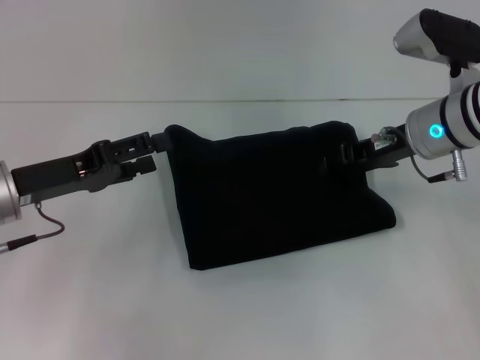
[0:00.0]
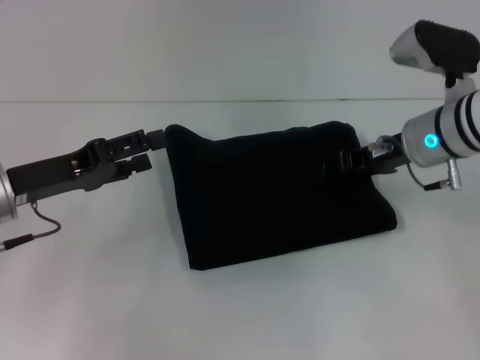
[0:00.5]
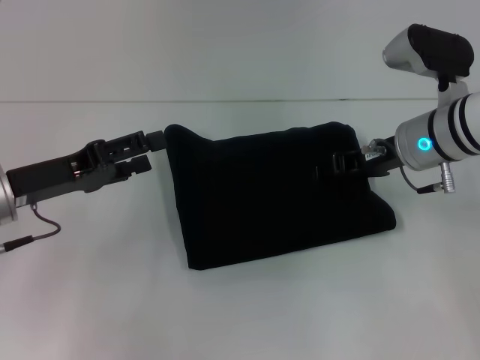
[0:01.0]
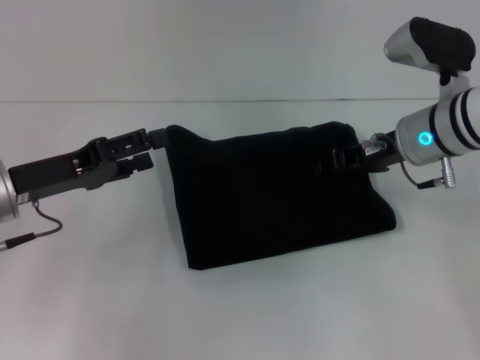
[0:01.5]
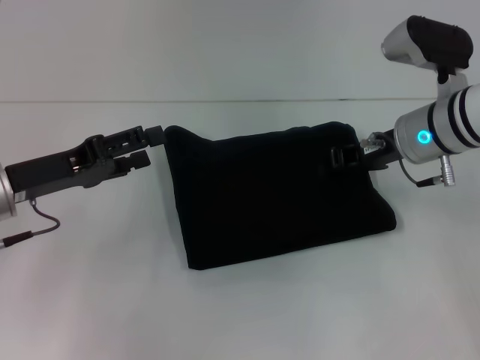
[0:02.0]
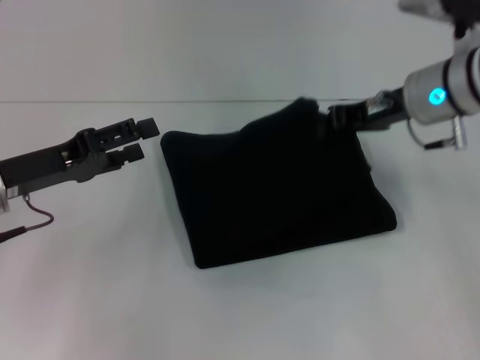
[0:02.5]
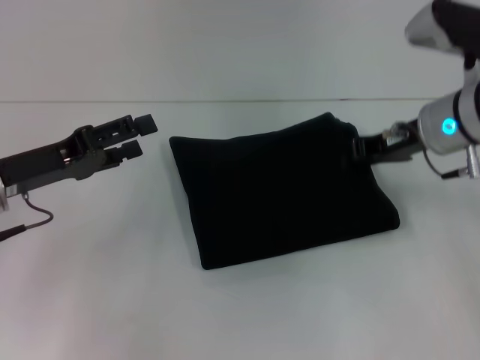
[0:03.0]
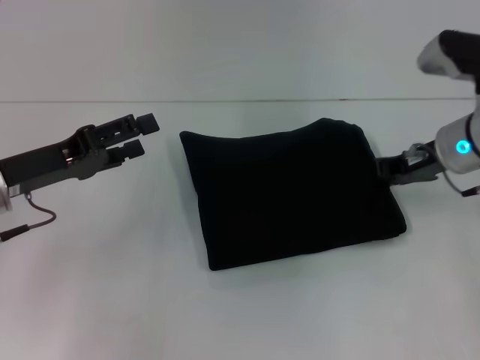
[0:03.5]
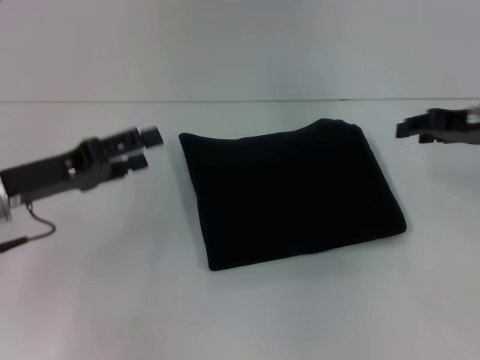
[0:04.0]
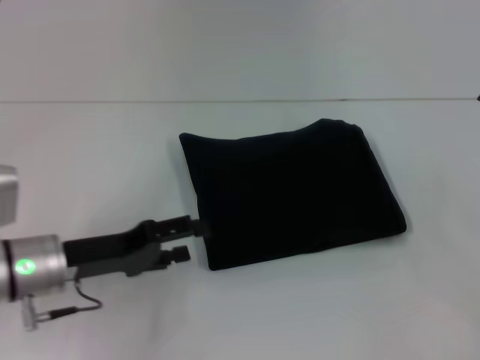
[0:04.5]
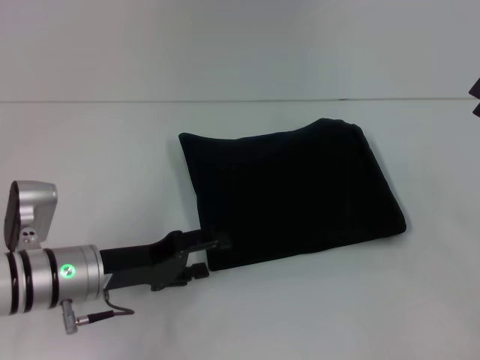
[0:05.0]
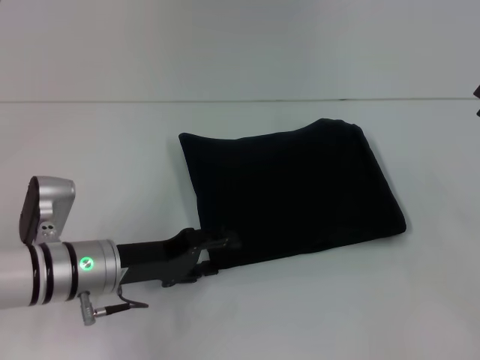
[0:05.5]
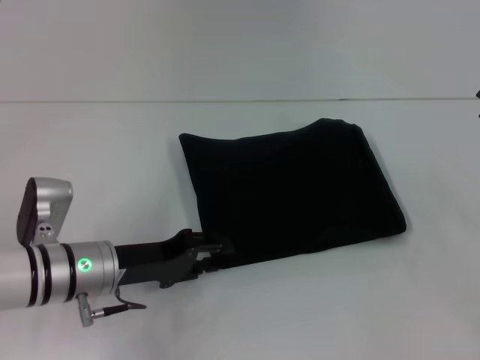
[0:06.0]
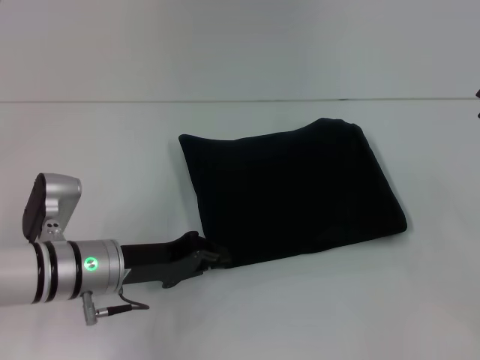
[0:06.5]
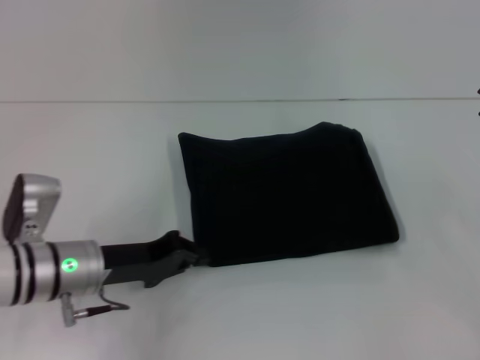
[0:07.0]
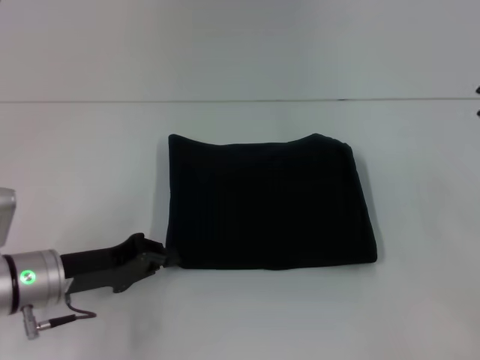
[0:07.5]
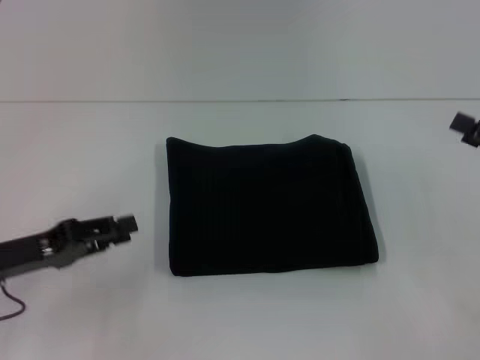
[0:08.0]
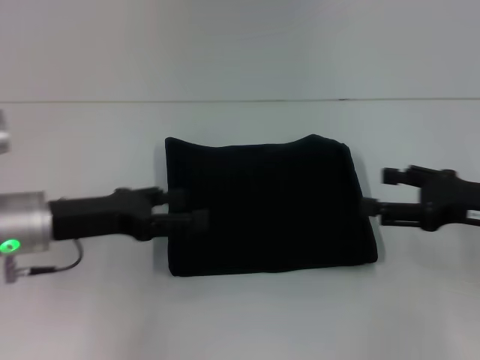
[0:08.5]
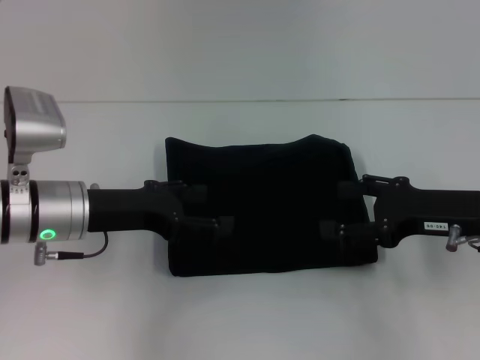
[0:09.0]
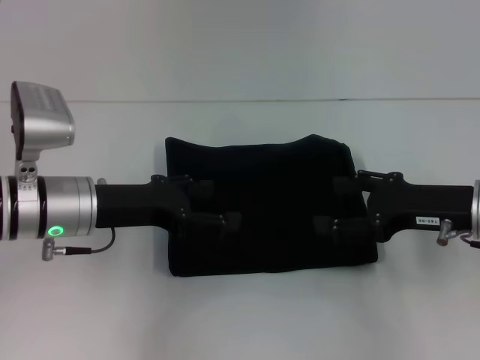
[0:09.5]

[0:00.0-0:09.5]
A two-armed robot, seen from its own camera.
0:00.0 to 0:02.0: The grippers make only small movements.
0:02.0 to 0:04.0: The right gripper goes roughly 10 cm to the right.
0:04.0 to 0:05.5: The right gripper is displaced backward and to the right by approximately 10 cm, and opens up; the left gripper travels to the right and downward by about 10 cm.
0:05.5 to 0:07.5: The left gripper travels to the left by roughly 5 cm, and closes.
0:07.5 to 0:09.5: The left gripper shifts approximately 5 cm upward, and opens up, while the right gripper goes roughly 10 cm to the left.

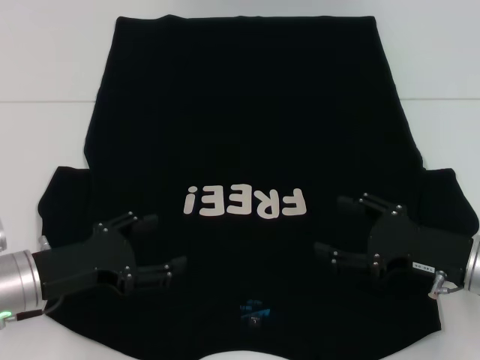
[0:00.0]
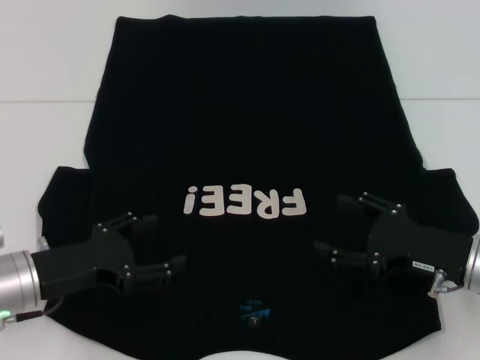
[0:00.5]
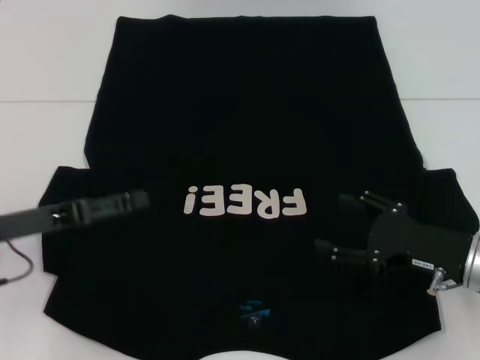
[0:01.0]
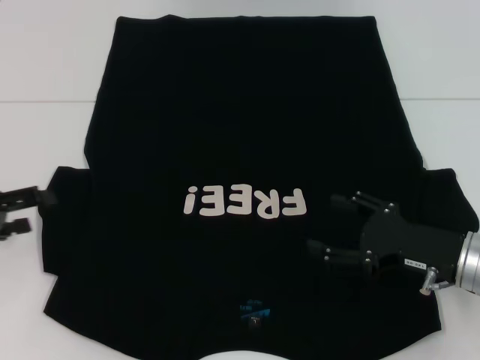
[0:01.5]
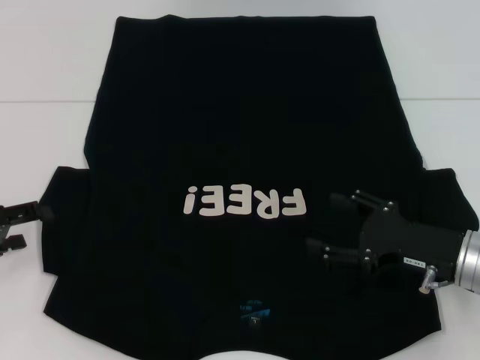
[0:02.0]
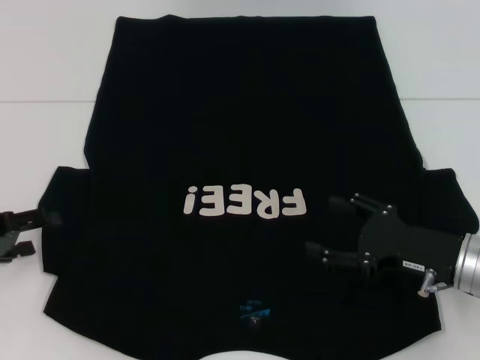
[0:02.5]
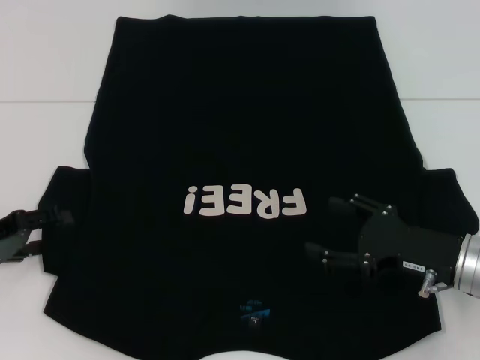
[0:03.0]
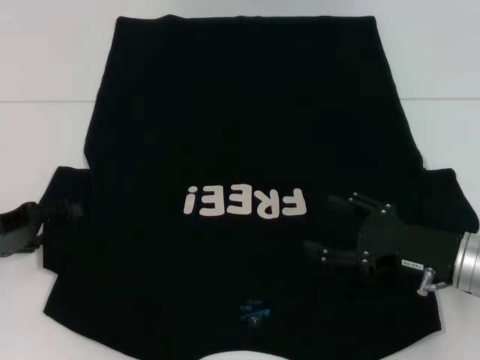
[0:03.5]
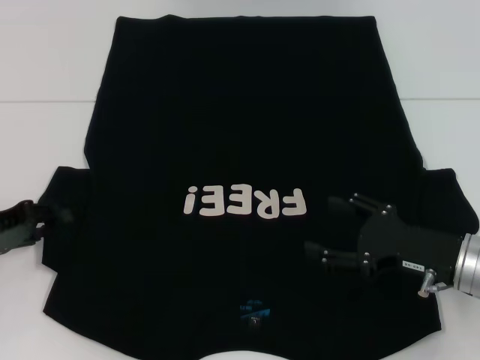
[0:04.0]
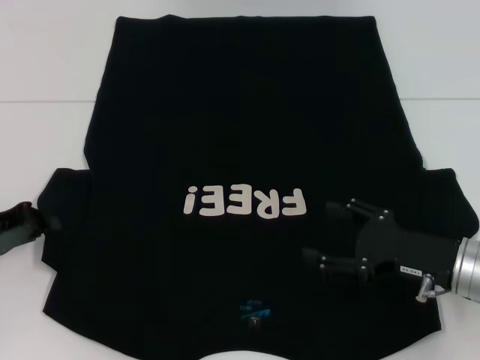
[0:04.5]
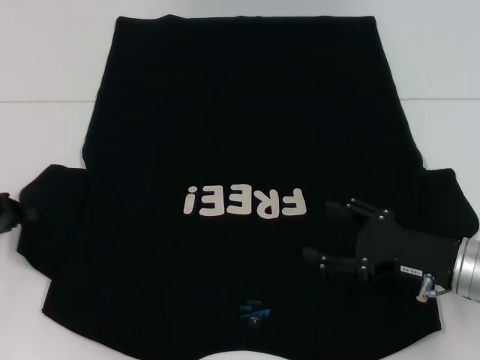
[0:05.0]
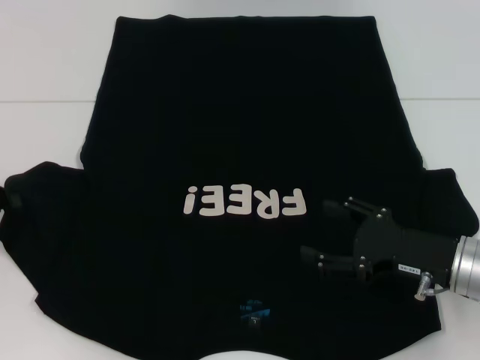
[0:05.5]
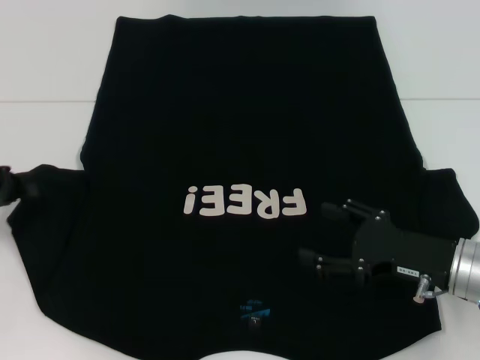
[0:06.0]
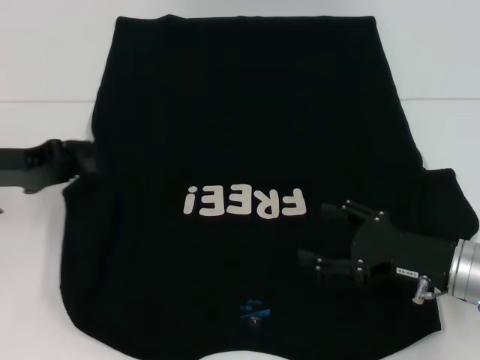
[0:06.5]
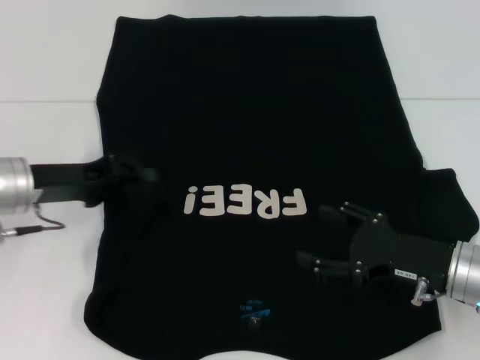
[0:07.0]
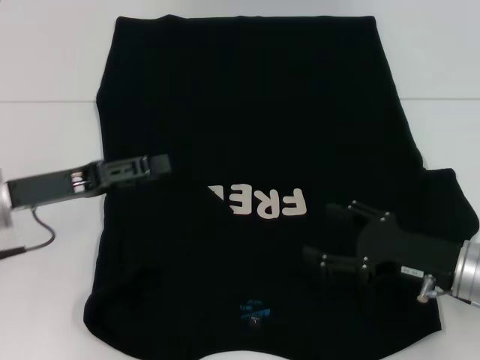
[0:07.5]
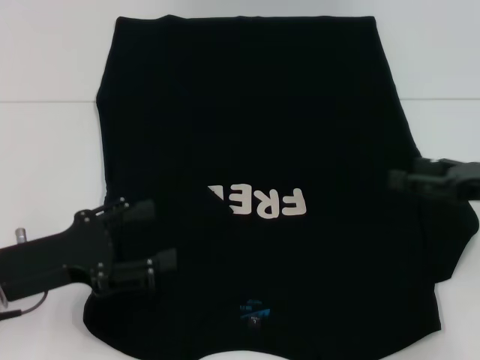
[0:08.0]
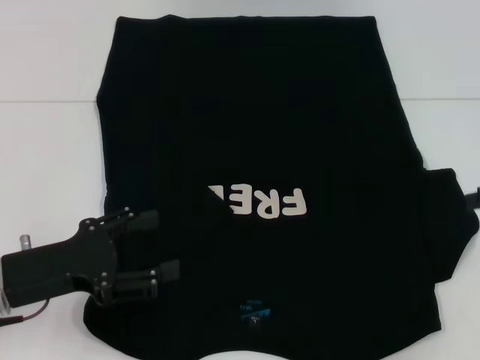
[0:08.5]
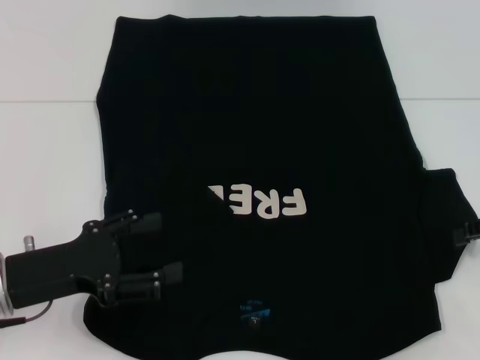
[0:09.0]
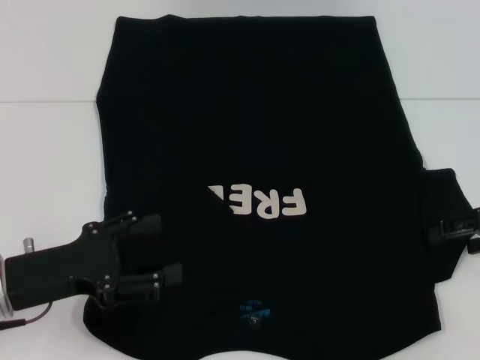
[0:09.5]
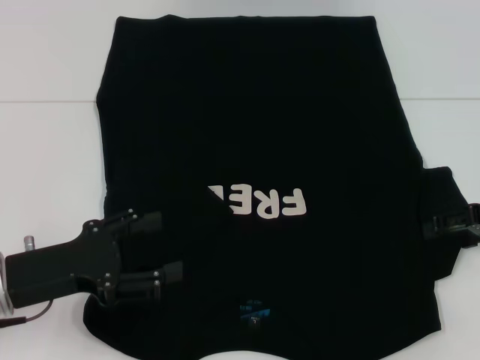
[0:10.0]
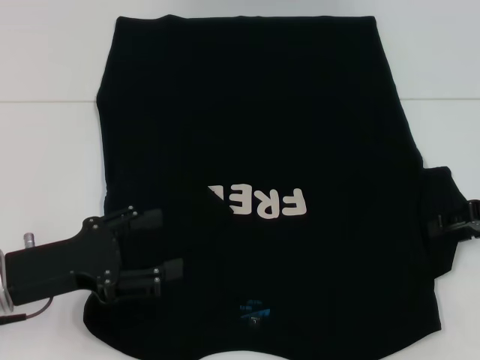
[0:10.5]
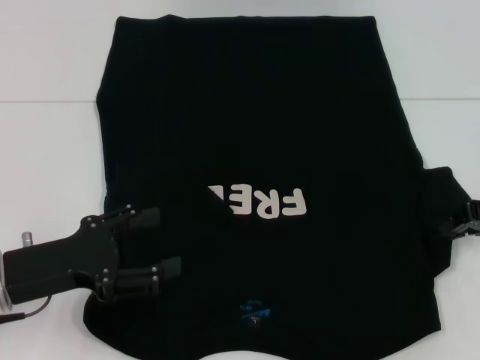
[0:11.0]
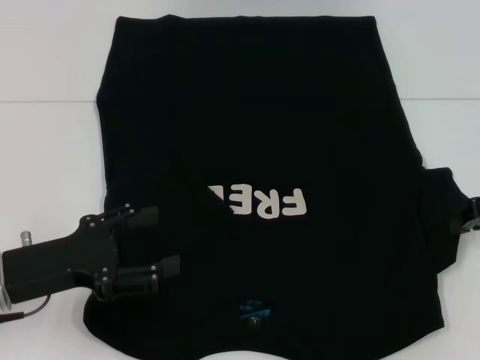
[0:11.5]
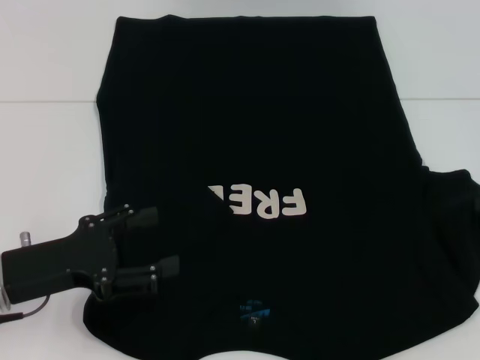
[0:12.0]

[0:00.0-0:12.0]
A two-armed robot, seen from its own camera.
Step, 0:00.0 to 0:08.0: Fold the bottom left sleeve with your left hand.
0:00.0 to 0:02.0: The left gripper heads to the left, covering approximately 10 cm.
0:02.0 to 0:04.0: The grippers make only small movements.
0:04.0 to 0:06.0: The left gripper shifts by roughly 5 cm, and closes its fingers.
0:06.0 to 0:08.0: The right gripper moves to the right and upward, some 10 cm. Meanwhile the left gripper heads to the right and backward, covering approximately 15 cm, and opens its fingers.
0:10.0 to 0:12.0: The right gripper closes.

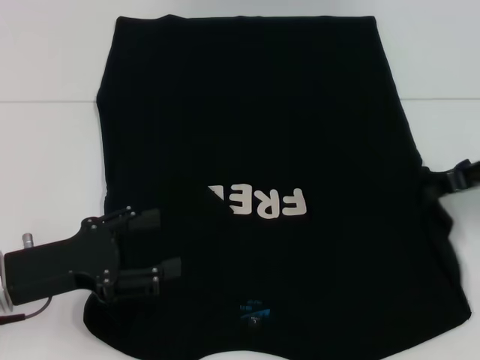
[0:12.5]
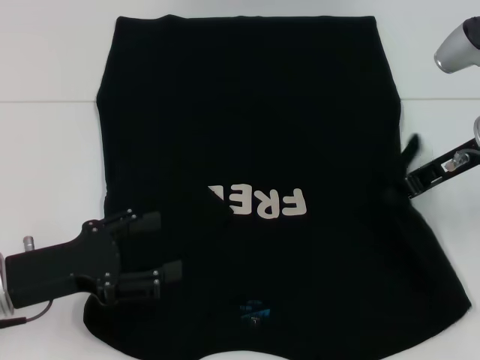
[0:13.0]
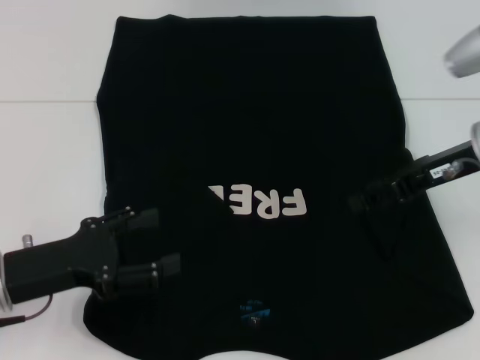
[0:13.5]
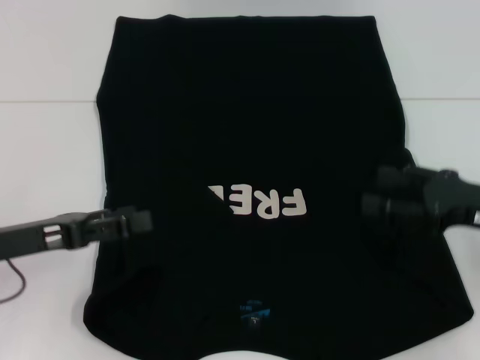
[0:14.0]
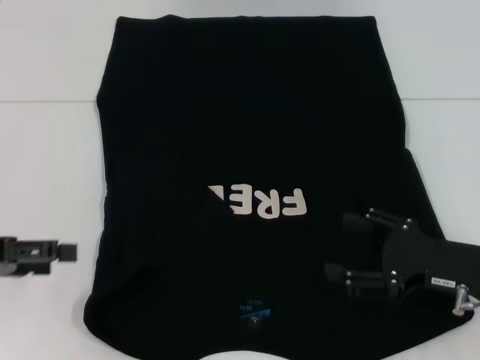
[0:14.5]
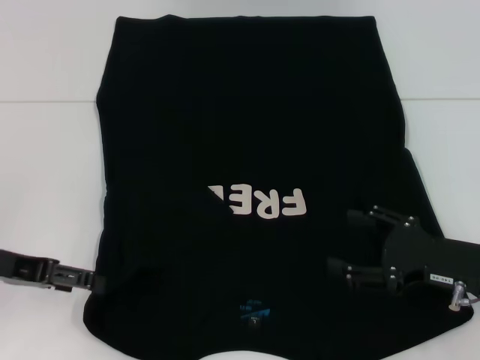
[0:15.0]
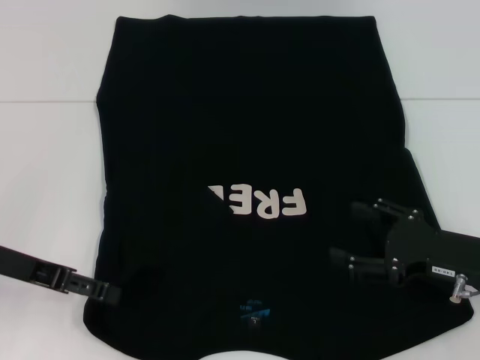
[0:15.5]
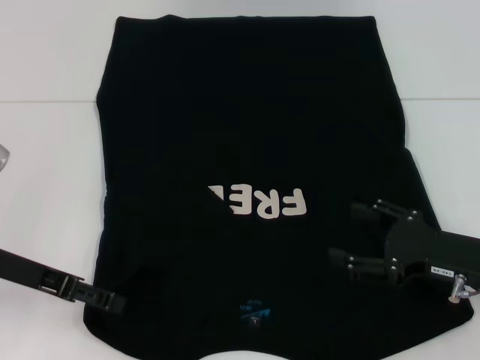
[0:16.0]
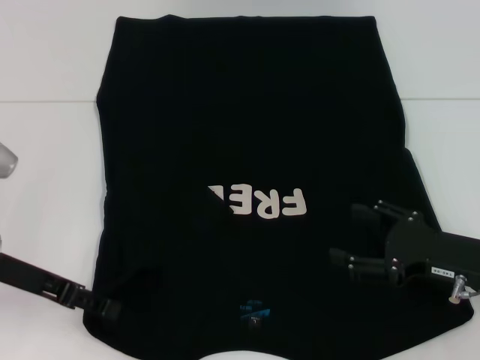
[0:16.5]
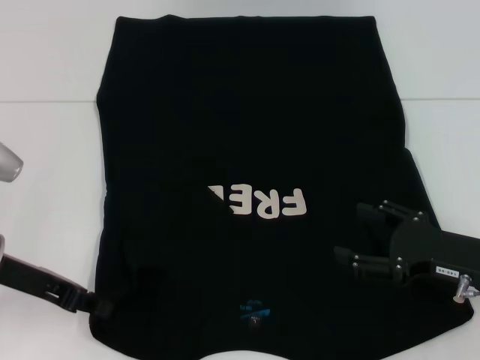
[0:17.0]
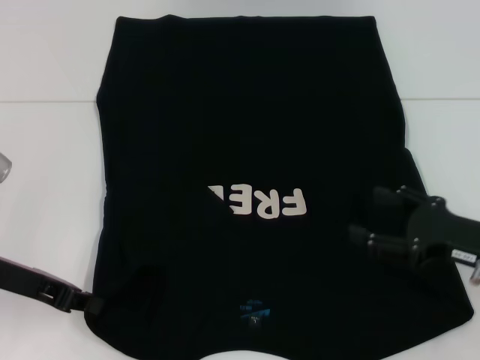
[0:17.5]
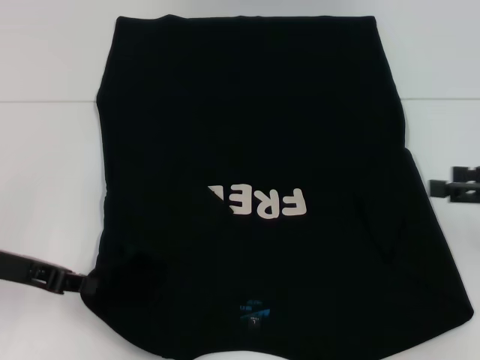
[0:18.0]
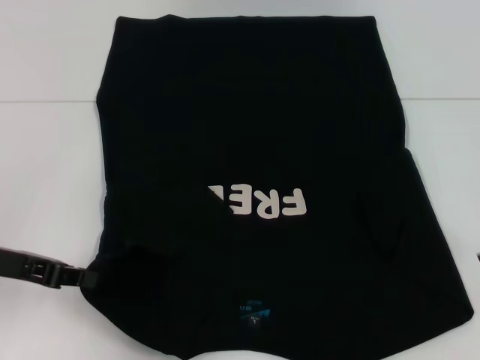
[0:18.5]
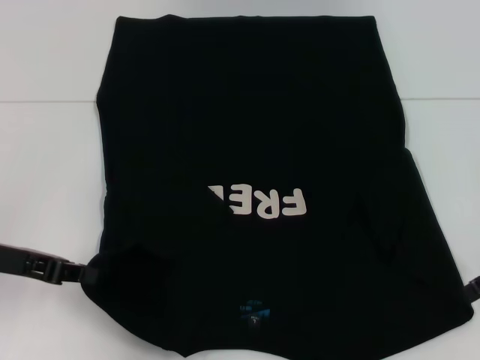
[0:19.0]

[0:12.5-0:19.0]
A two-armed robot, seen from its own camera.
Step, 0:13.5 to 0:17.5: Grab the bottom left corner with your left hand.
0:12.5 to 0:14.5: The right gripper is displaced backward and downward by roughly 15 cm, and opens. Meanwhile the left gripper travels to the left by some 10 cm.
0:14.5 to 0:17.0: The left gripper moves to the right, roughly 10 cm, and closes.
0:17.0 to 0:19.0: The right gripper is displaced upward, forward and to the right by about 15 cm. The left gripper closes.
